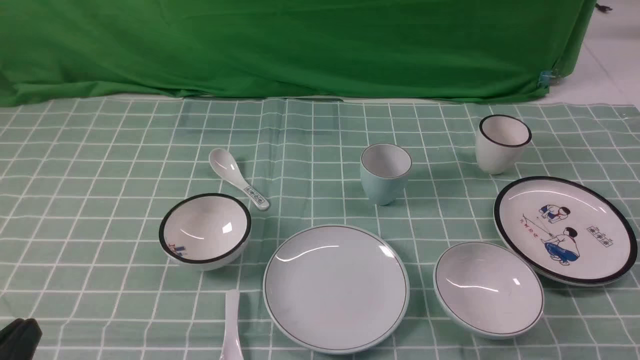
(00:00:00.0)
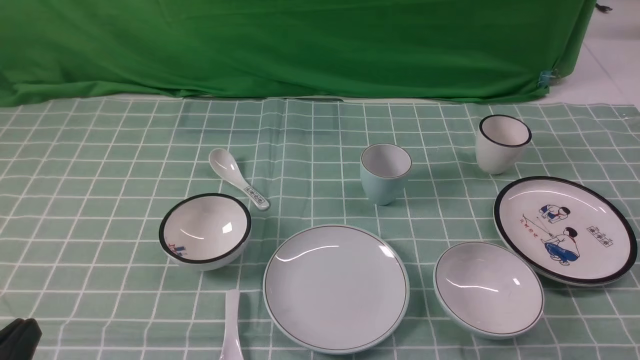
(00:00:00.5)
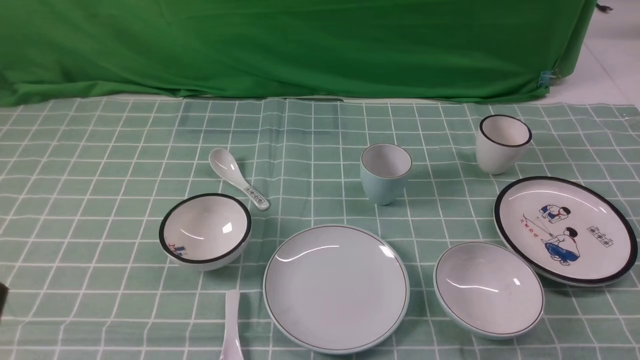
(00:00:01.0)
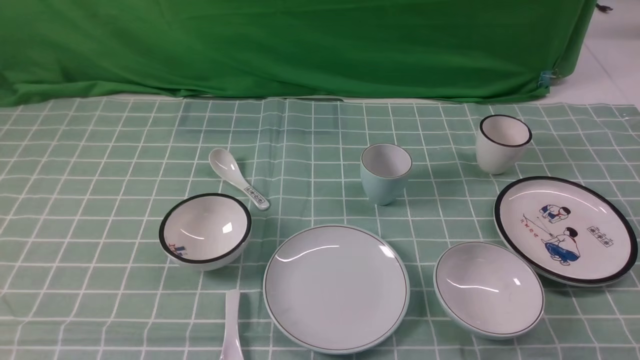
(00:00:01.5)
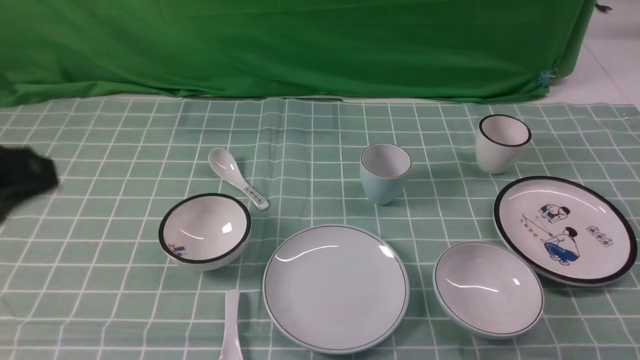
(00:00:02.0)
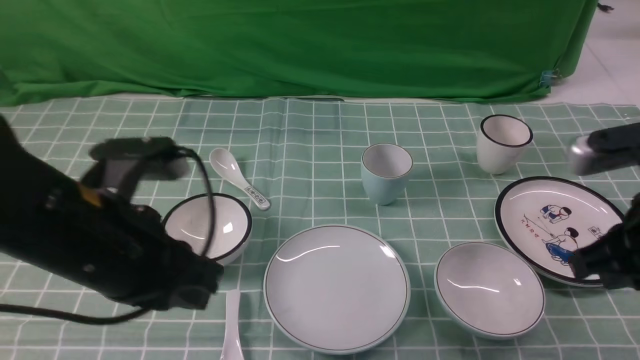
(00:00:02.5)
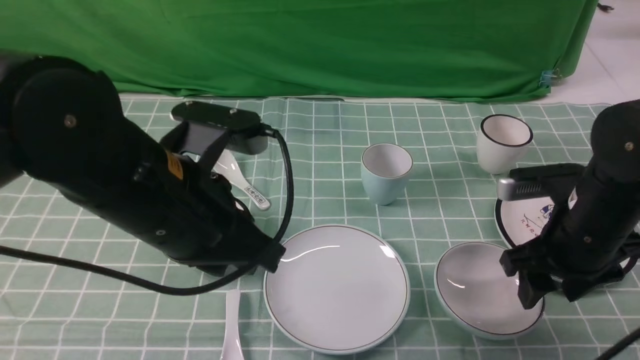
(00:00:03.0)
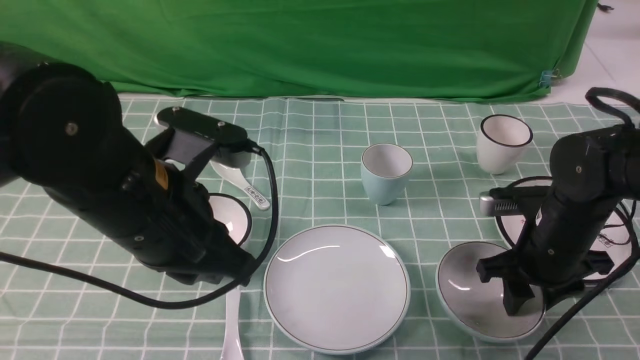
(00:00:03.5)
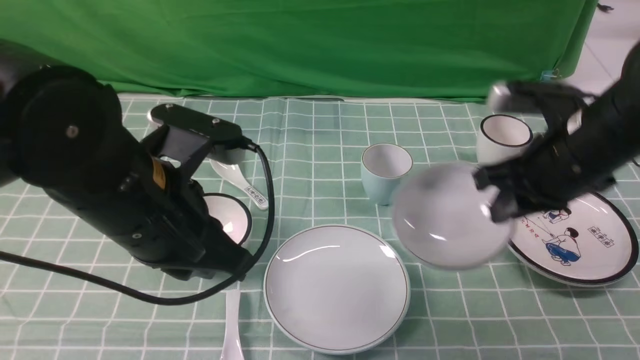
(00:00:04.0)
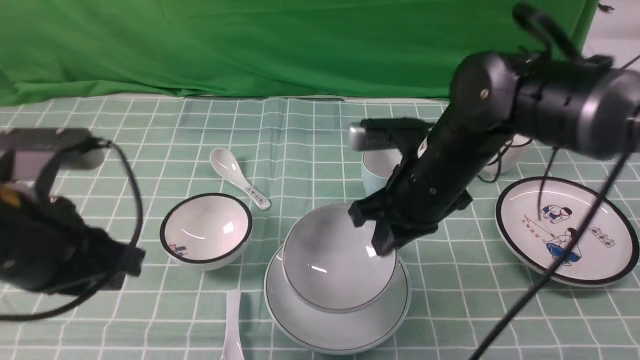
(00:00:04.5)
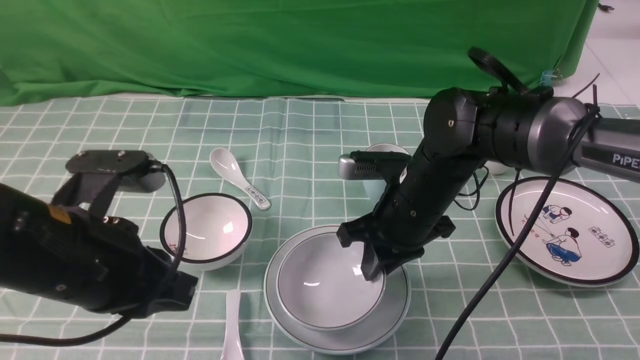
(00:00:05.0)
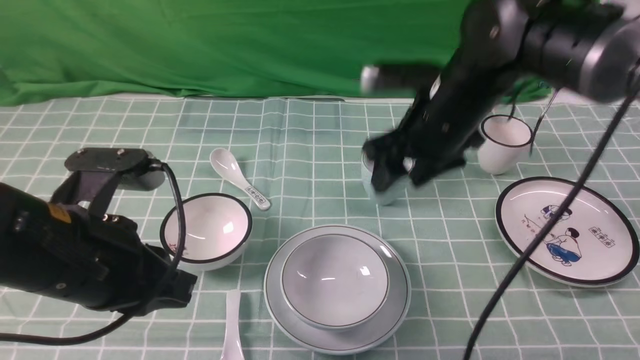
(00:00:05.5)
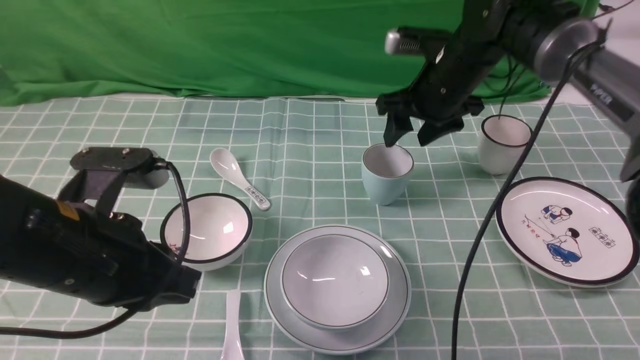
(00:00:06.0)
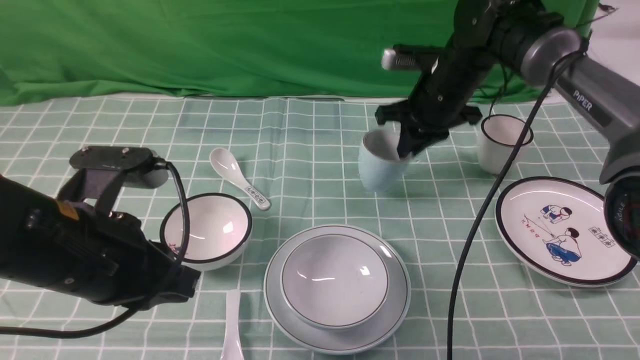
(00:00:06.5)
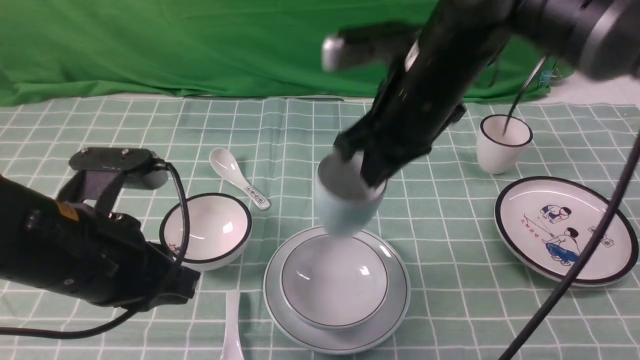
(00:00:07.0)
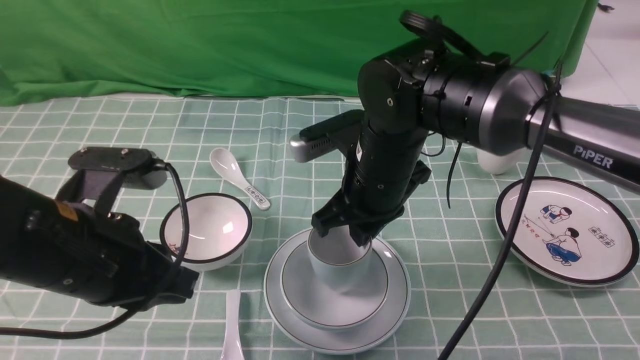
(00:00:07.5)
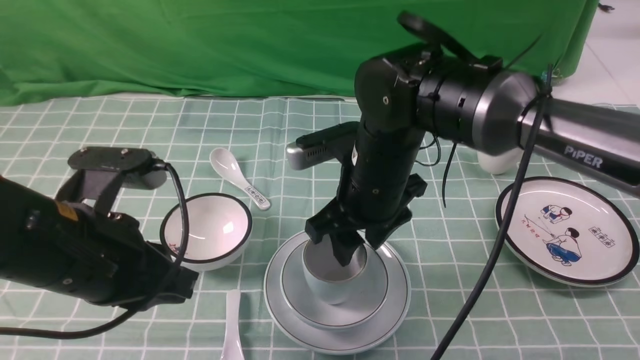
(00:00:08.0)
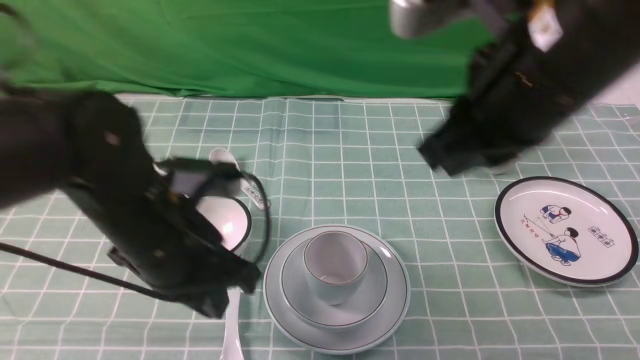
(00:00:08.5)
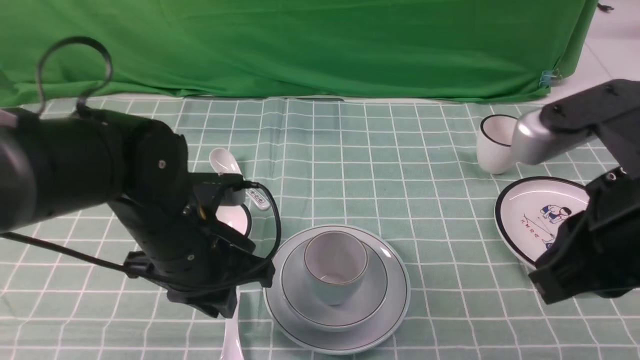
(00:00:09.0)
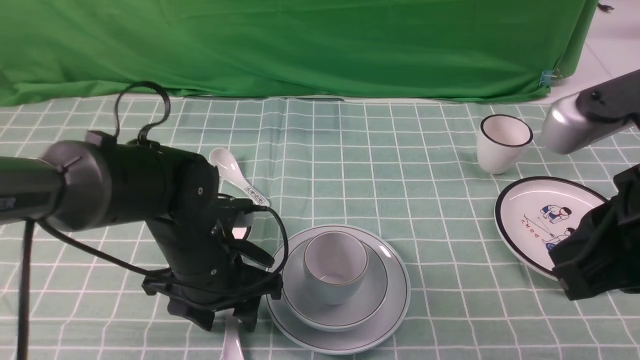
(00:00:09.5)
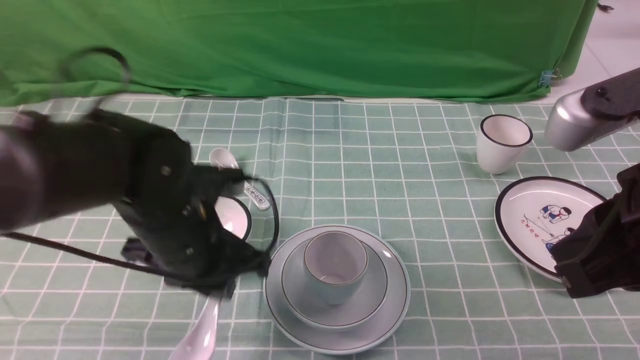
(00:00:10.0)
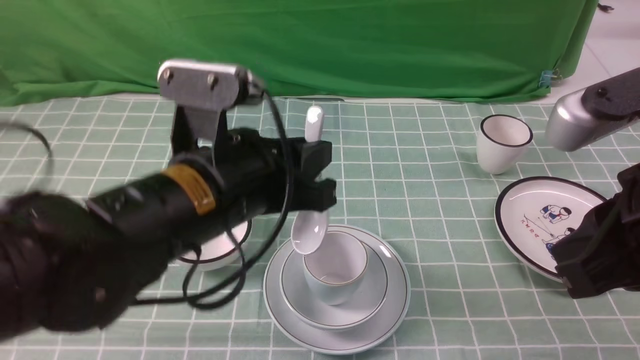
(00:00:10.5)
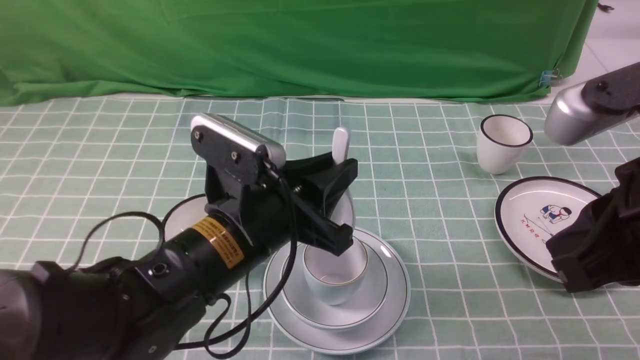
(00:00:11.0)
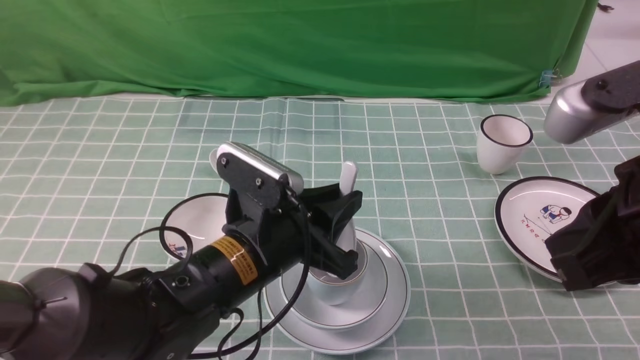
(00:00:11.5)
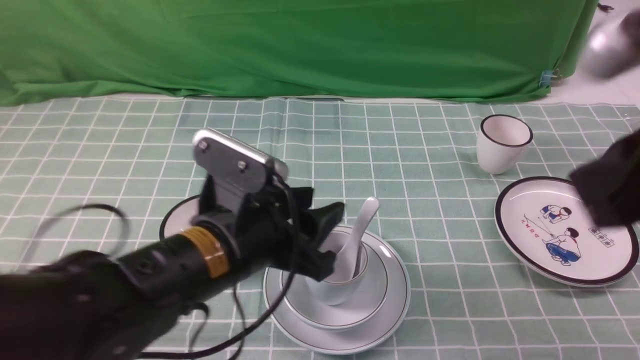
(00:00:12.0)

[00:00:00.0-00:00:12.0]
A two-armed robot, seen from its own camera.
Task of the whole recording: place the bowls on the plates on the blue tablecloth, put the cups on the bowls, and place the spoons in the cups.
Step, 00:00:00.0 to 00:00:03.5: Grasp the bowl with the right gripper.
Step, 00:00:04.0 to 00:00:05.0: Place the bowl on the plate with the right gripper.
Step, 00:00:05.5 to 00:00:06.0: Grasp the cup with the right gripper.
Step, 00:00:06.5 to 00:00:07.5: Place the cup on the bowl with the right gripper.
Step, 00:00:08.0 to 00:00:09.5: Grasp the spoon with the left gripper.
Step, 00:00:10.0 to 00:00:11.5: Place the spoon on the cup with the left gripper.
00:00:02.0 to 00:00:04.0: The left gripper travels to the right, forward and downward by roughly 15 cm; the right gripper goes some 25 cm forward and to the left, and opens, then closes again.
00:00:04.0 to 00:00:06.0: The left gripper shifts some 5 cm to the left; the right gripper heads forward and to the left, covering approximately 15 cm, and opens its fingers.
00:00:06.0 to 00:00:08.0: The right gripper goes approximately 15 cm backward and to the left, and closes up.
00:00:08.0 to 00:00:10.0: The left gripper is displaced forward, to the right and downward by about 10 cm, and opens up, while the right gripper shifts about 25 cm backward, to the right and upward, and closes up.
00:00:10.0 to 00:00:12.0: The left gripper travels upward and back again, some 10 cm each way, and opens.

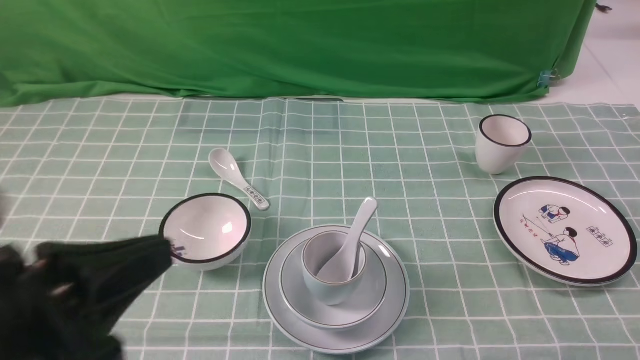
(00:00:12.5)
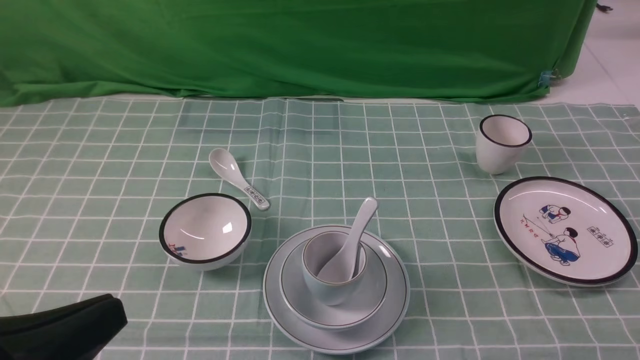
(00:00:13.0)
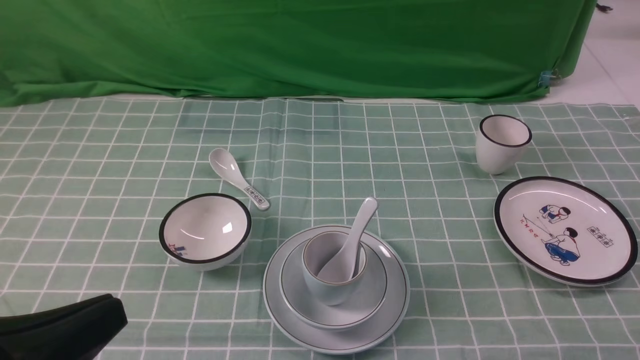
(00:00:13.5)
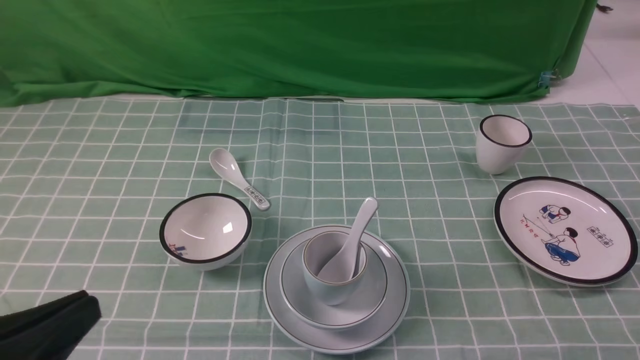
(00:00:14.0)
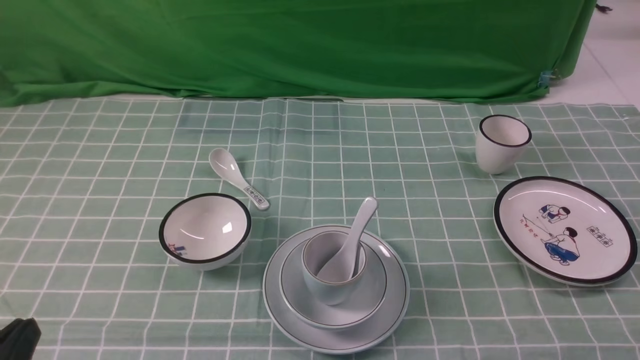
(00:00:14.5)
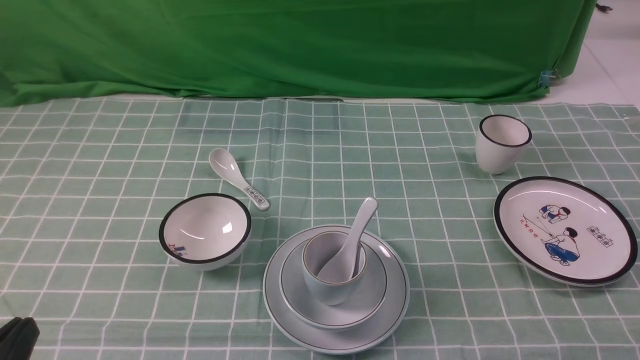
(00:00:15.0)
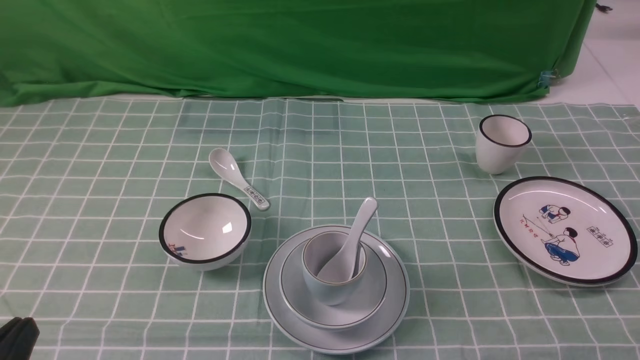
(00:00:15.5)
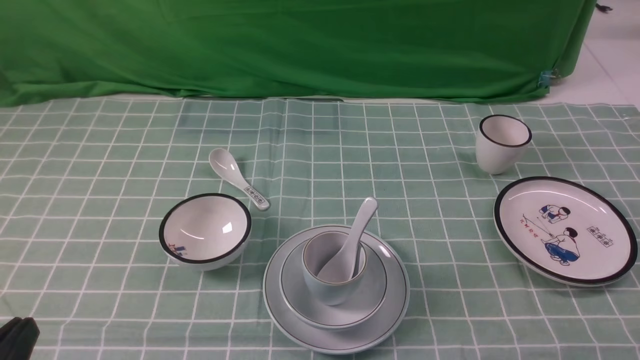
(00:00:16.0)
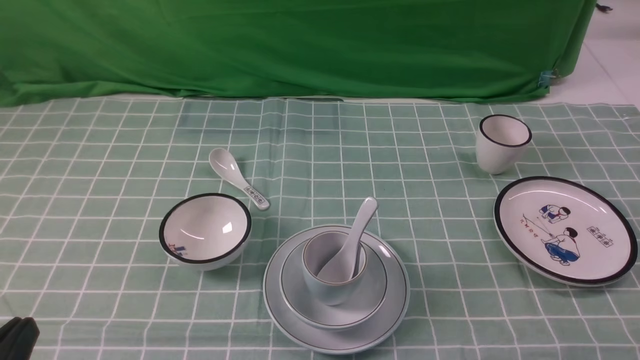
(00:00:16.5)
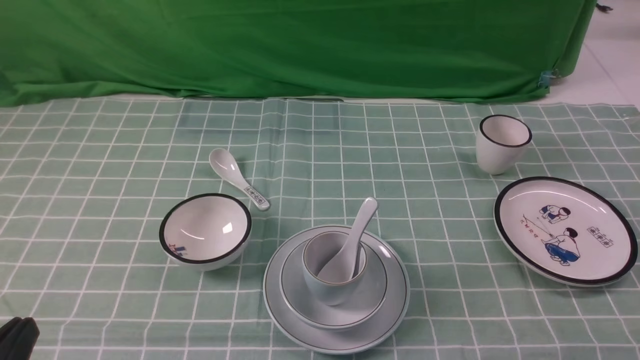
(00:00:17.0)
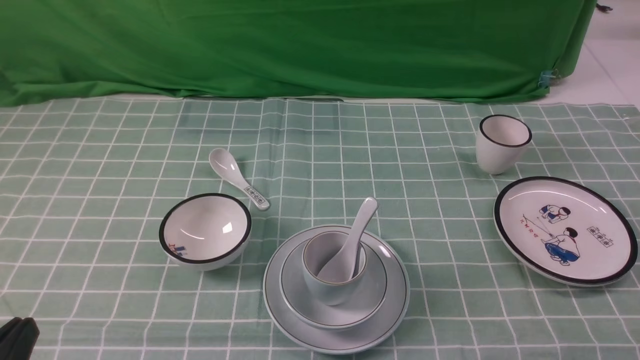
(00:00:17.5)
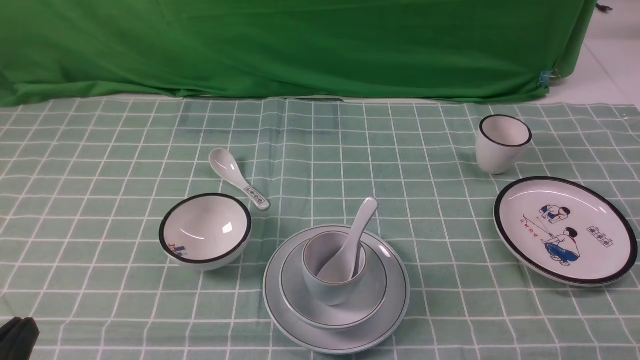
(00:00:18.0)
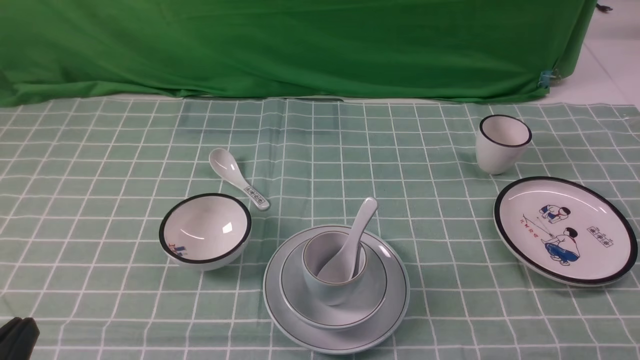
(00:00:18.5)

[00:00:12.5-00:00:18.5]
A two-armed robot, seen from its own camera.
Task of the whole recording: place the bowls on the plates on the blue tablecloth, put the cups on the bowls, and place the spoons in the cups.
00:00:12.5 to 00:00:14.5: The left gripper heads downward, to the left and backward, covering about 15 cm; the right gripper travels downward by approximately 5 cm.
